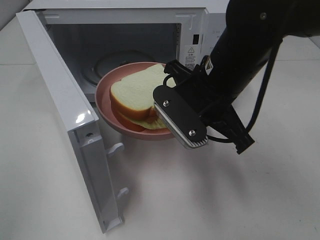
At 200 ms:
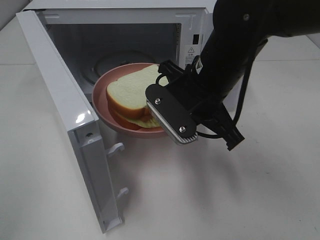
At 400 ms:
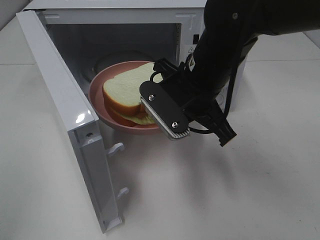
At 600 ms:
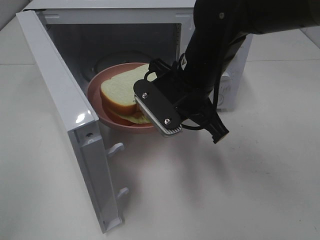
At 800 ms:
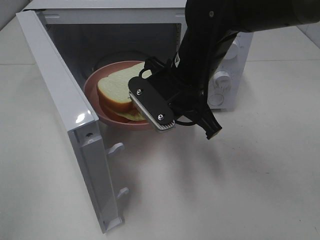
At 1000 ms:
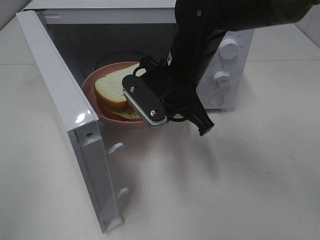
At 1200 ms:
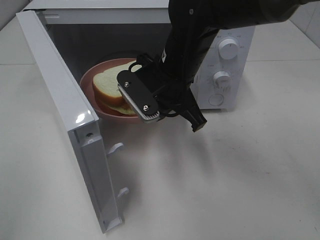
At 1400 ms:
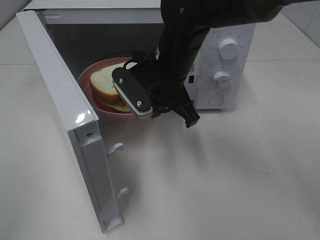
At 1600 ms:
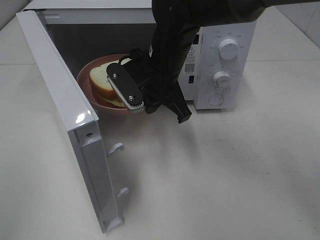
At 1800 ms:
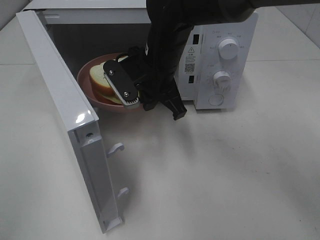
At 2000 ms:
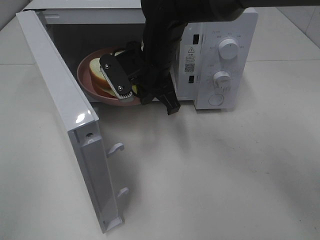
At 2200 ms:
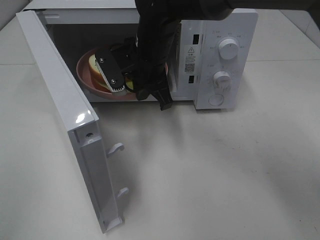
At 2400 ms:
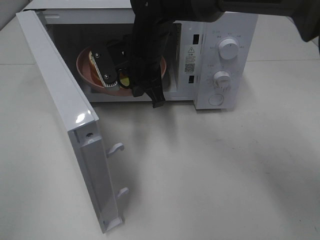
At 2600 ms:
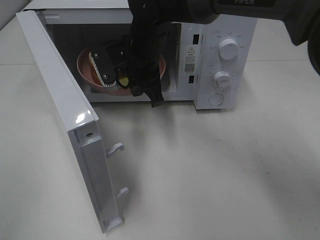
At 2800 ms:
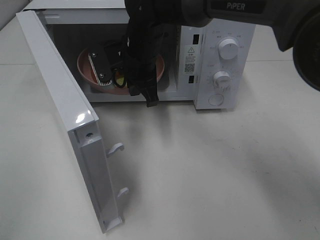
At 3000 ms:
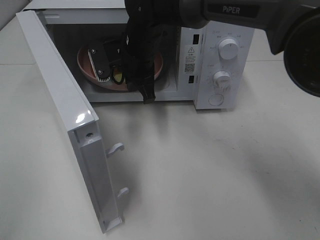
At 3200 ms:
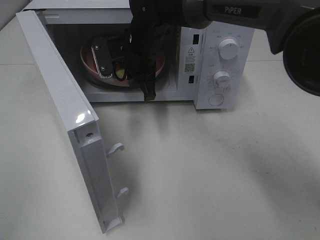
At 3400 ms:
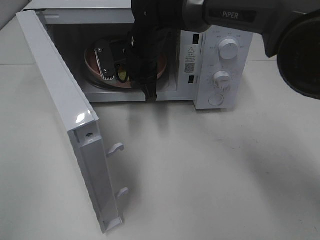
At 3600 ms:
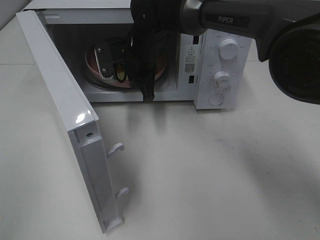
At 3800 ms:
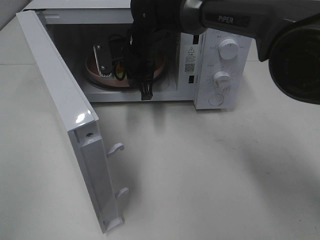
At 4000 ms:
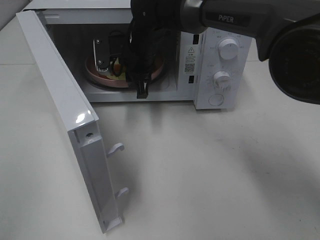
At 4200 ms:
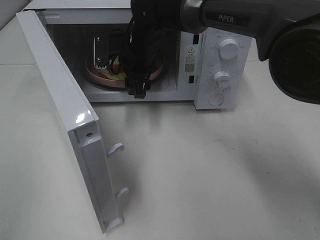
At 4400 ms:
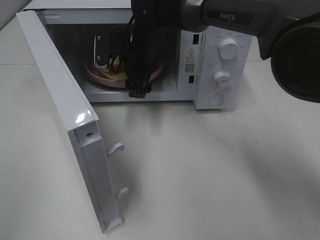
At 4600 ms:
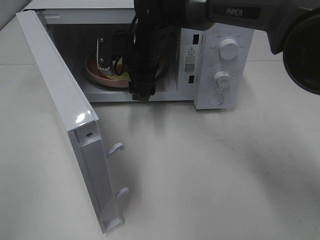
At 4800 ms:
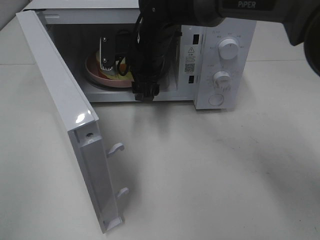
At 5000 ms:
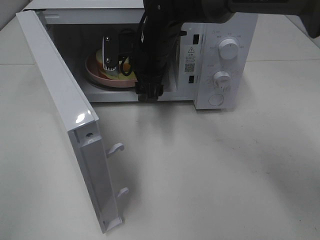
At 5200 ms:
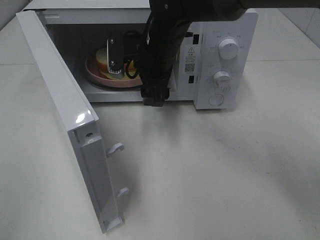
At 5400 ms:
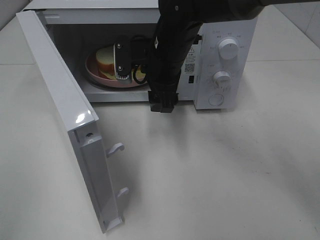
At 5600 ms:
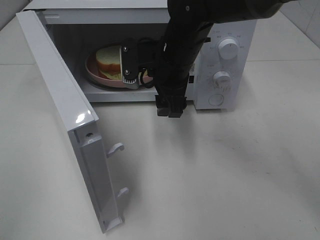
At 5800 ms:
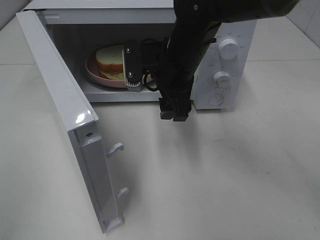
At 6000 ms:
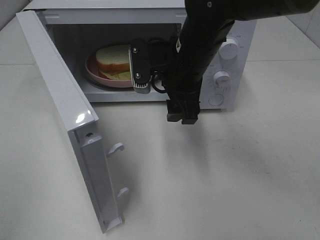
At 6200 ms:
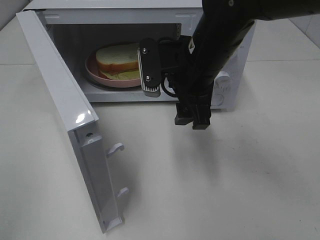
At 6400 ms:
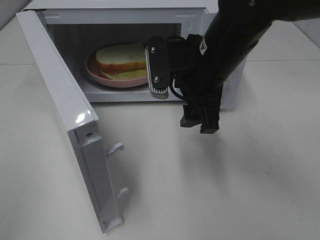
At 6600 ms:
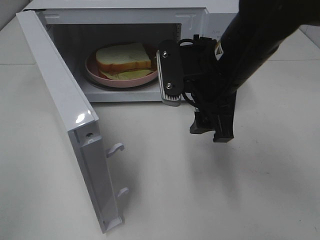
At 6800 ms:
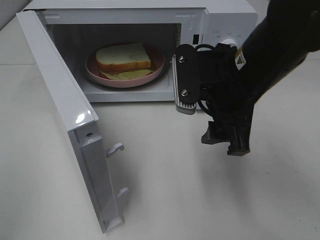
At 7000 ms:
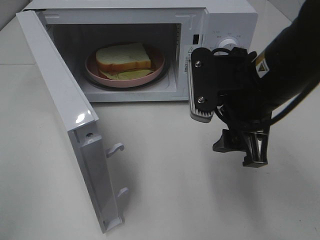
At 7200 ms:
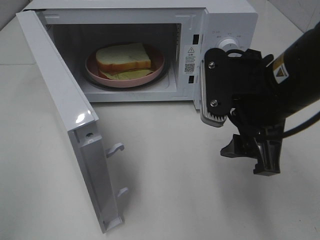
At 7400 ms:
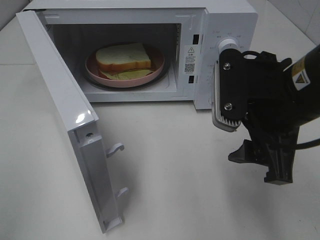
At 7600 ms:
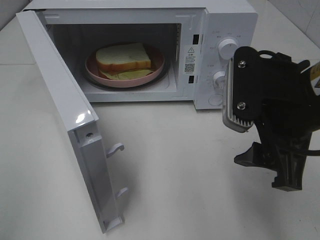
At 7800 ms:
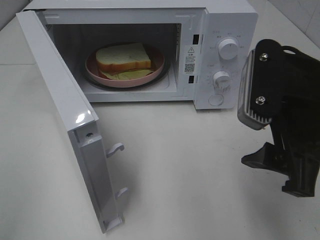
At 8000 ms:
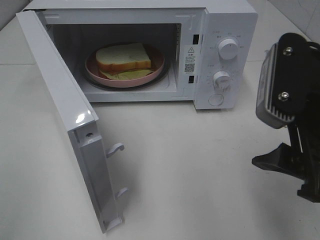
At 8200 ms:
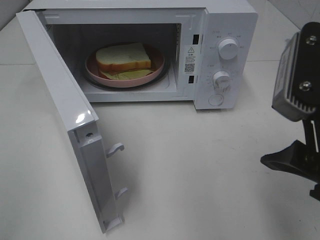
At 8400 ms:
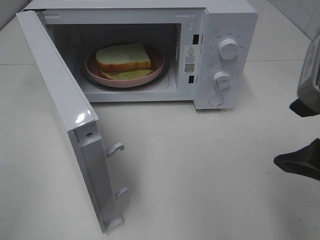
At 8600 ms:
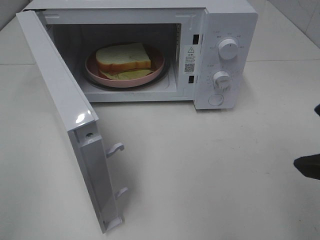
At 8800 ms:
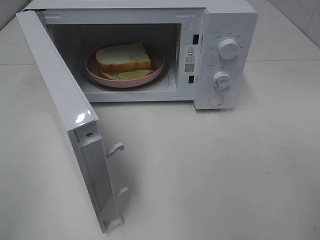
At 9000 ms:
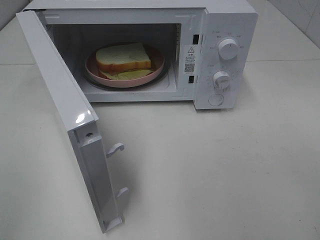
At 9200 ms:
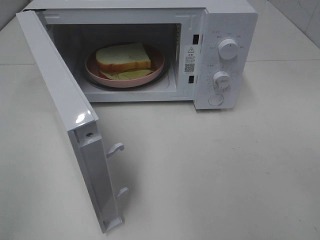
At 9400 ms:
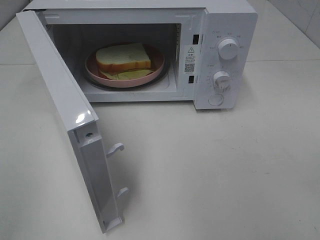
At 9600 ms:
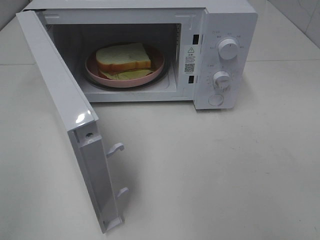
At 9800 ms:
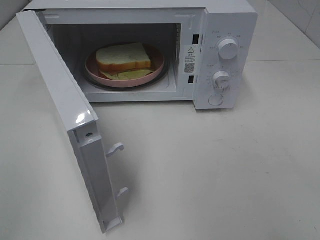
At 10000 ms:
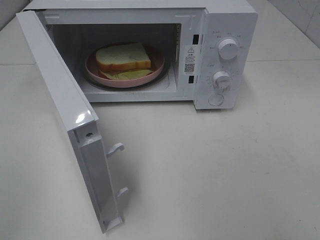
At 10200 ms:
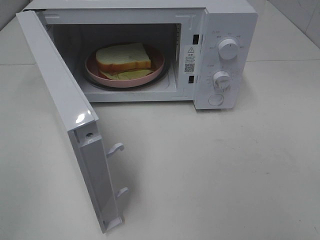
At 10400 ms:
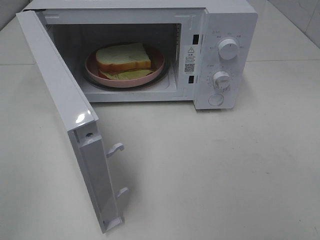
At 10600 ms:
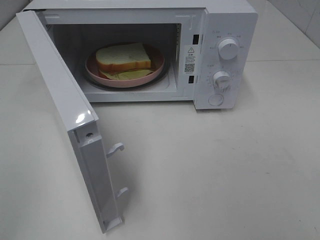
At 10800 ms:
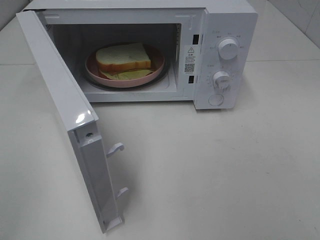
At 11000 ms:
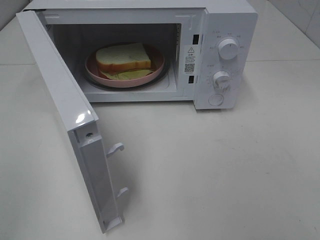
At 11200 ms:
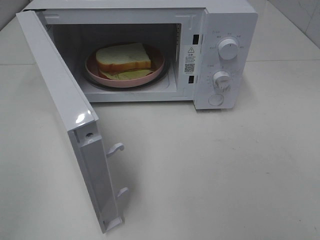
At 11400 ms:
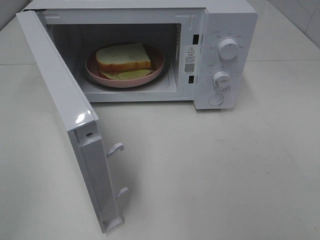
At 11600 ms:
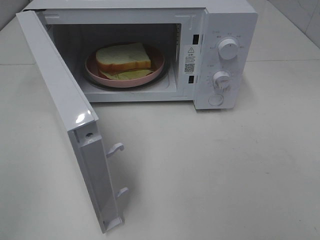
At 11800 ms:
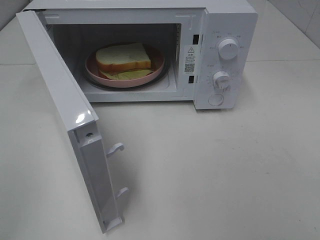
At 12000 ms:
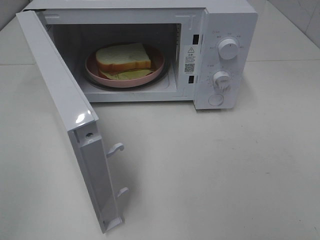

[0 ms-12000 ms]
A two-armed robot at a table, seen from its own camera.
Task of the whole recording: Heat Sandwich.
Step, 0 ms to 5000 ms: Right hand: place the plate in the microwave.
0 ms to 1600 ms: The right gripper heads forward and to the left, covering about 10 cm.
1600 ms to 3000 ms: The right gripper is displaced forward by approximately 5 cm.
3000 ms to 4400 ms: The right gripper opens its fingers.
4400 ms to 6000 ms: The right gripper moves backward and to the right, approximately 15 cm.
6000 ms to 7600 ms: The right gripper shifts some 20 cm backward and to the right.
7600 ms to 9000 ms: The right gripper goes approximately 15 cm backward, to the right and upward.

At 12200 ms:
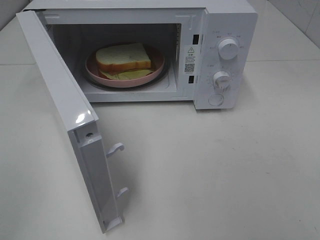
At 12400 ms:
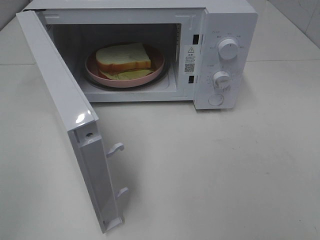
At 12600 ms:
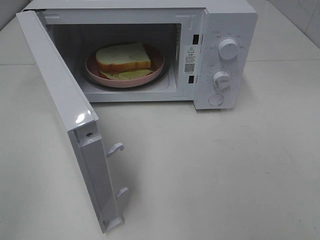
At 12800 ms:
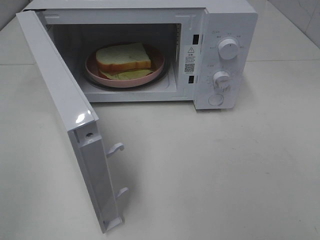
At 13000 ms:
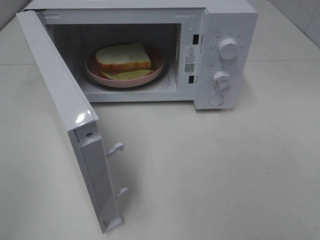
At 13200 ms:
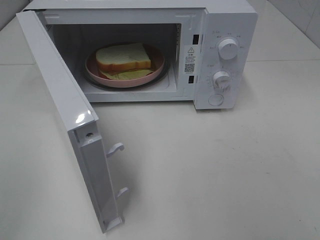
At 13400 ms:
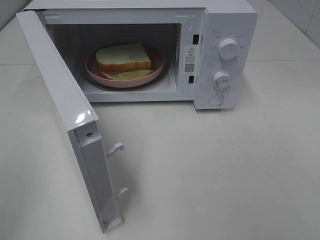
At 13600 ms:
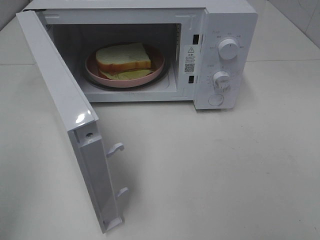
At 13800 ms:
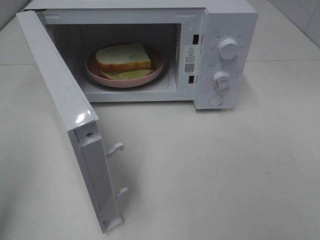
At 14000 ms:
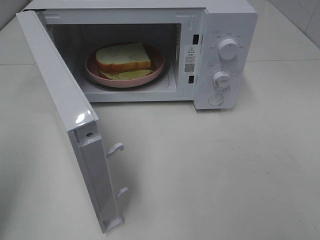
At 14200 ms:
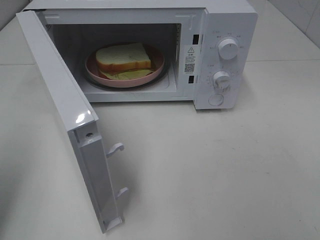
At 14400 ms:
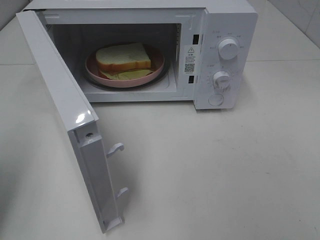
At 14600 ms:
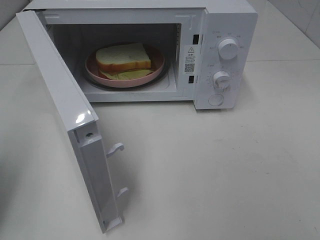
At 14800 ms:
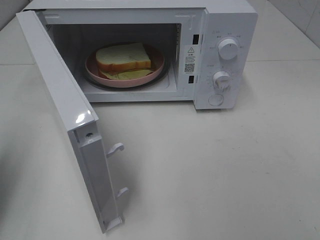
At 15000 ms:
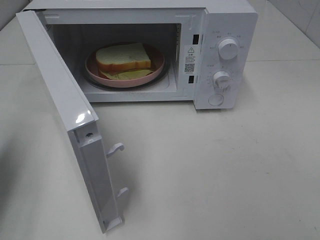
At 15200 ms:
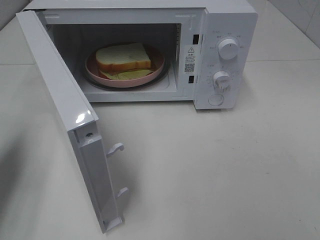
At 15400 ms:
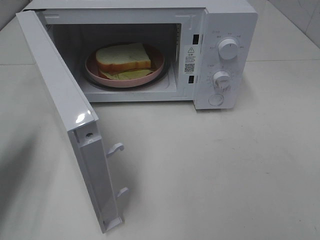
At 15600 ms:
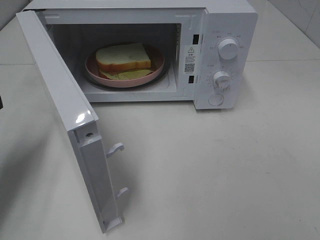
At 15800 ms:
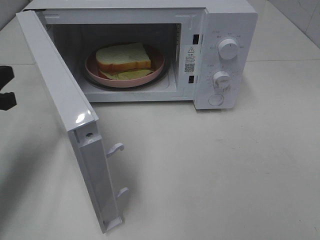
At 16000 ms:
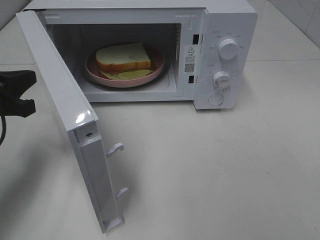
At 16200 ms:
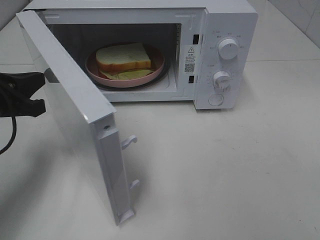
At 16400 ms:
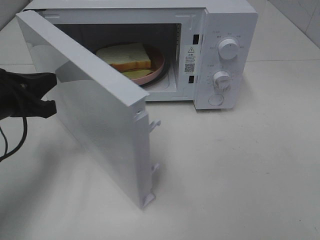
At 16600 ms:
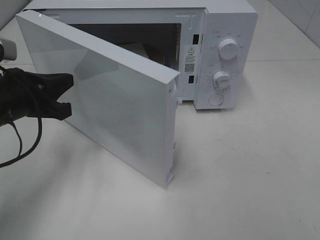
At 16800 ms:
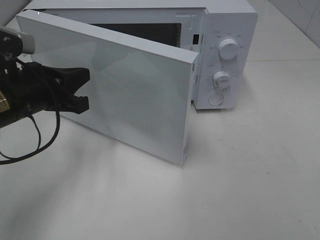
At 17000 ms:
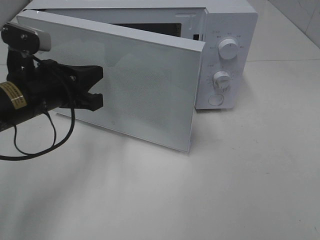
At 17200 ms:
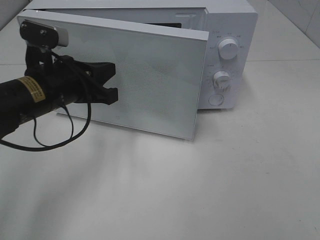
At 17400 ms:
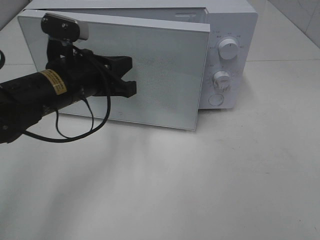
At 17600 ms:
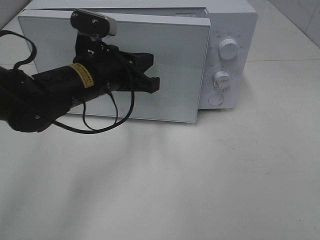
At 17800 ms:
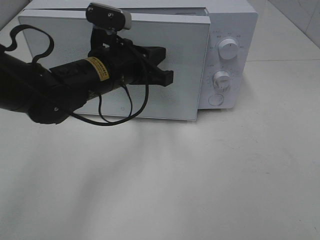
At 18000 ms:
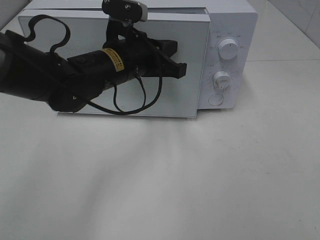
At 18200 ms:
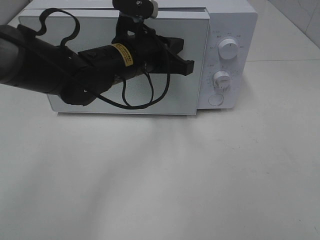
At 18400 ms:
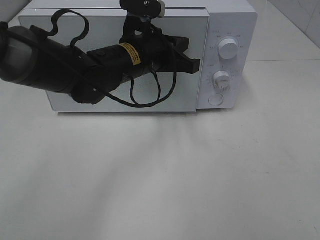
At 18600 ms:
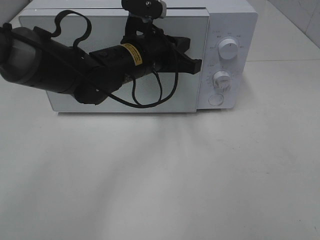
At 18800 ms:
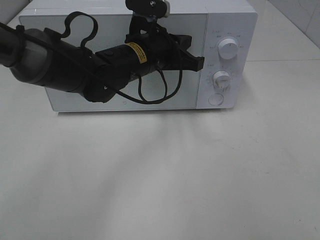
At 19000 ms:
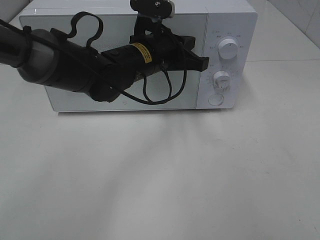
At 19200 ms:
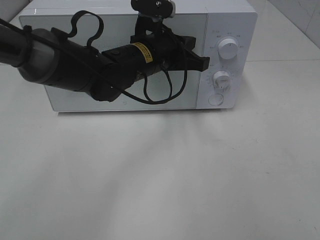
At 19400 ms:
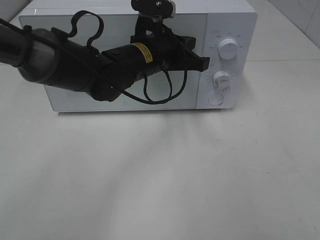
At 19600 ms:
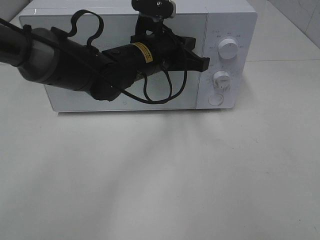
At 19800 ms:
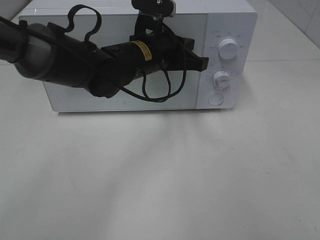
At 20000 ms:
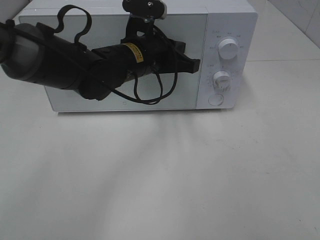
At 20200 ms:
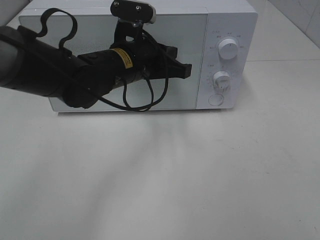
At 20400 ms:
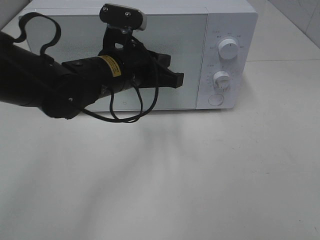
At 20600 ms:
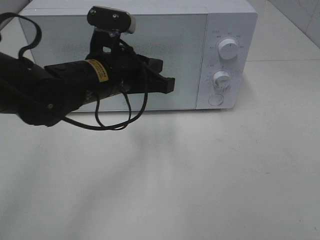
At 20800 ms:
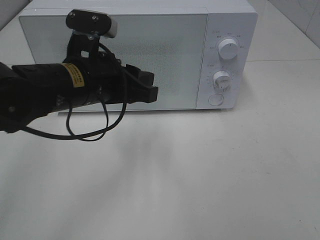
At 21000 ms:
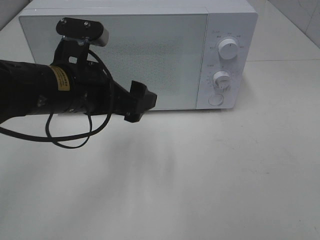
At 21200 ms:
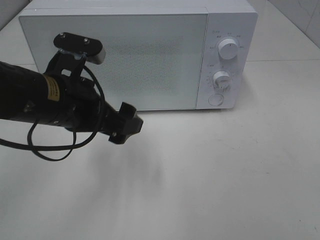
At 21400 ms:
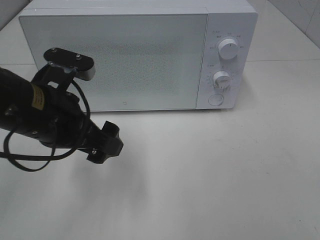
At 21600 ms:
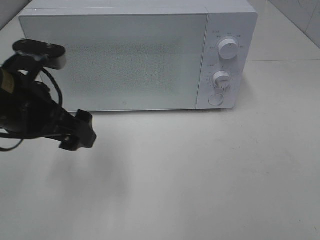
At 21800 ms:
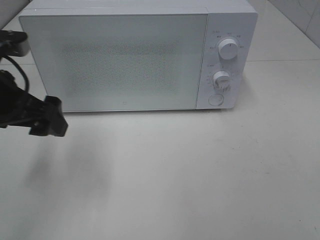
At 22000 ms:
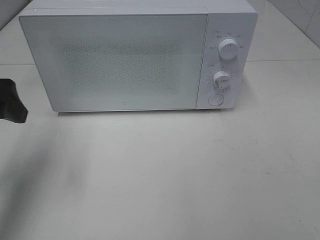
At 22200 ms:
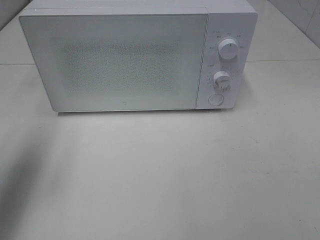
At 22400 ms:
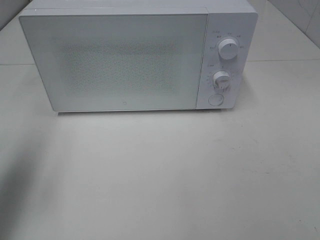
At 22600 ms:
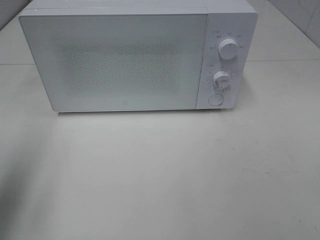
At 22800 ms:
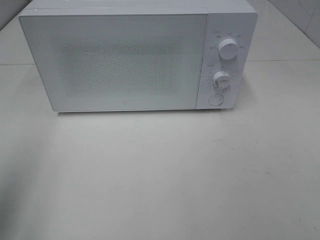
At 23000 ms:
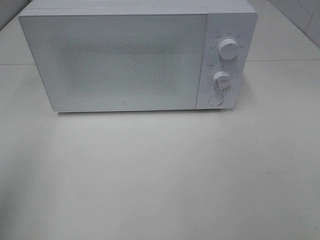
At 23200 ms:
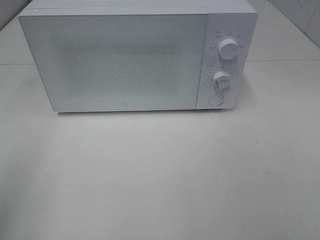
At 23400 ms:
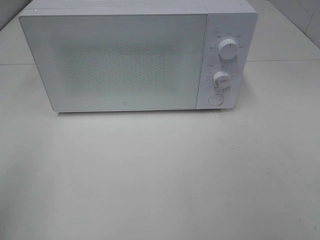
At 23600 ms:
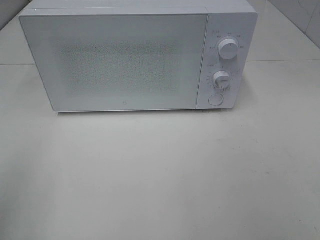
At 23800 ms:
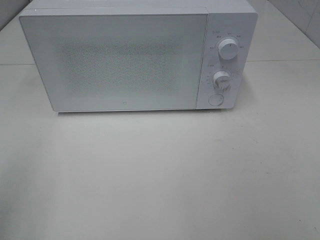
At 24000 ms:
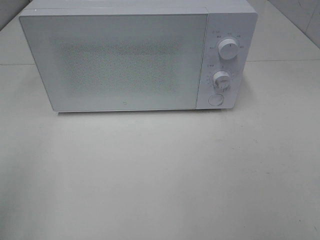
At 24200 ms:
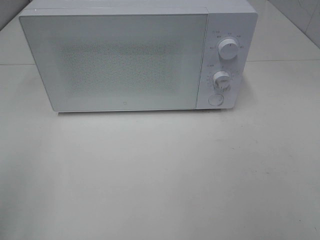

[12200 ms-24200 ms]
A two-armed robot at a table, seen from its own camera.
Task of the whole recording: Heat Sandwich.
Step, 12200 ms to 20800 ms: Left hand: close the microwave door.
13800 ms to 15200 ms: The left gripper moves forward and downward, about 15 cm, and closes its fingers.
15200 ms to 16600 ms: The left gripper travels to the right by some 10 cm.
16600 ms to 18200 ms: The left gripper goes roughly 20 cm to the right and forward.
18200 ms to 19800 ms: The grippers stay close to where they were, moving slightly.
19800 ms to 21200 ms: The left gripper goes about 15 cm backward and to the left, and opens its fingers.
21200 ms to 22600 ms: The left gripper heads to the left, backward and upward, covering roughly 20 cm.
22600 ms to 24200 ms: The left gripper moves backward, roughly 10 cm.
